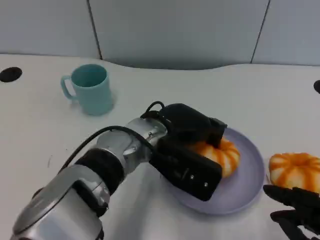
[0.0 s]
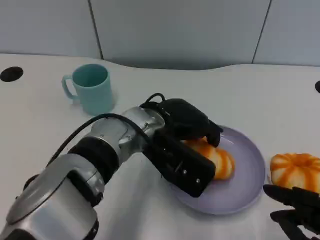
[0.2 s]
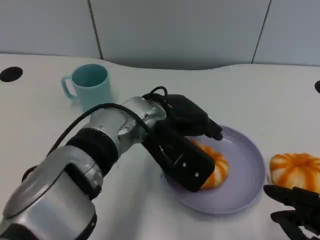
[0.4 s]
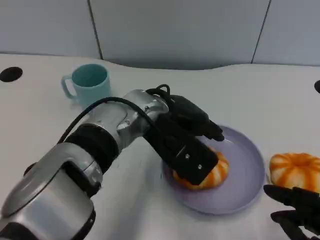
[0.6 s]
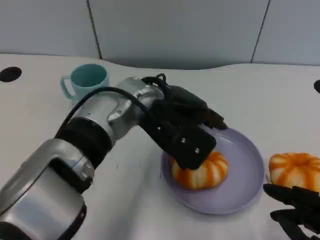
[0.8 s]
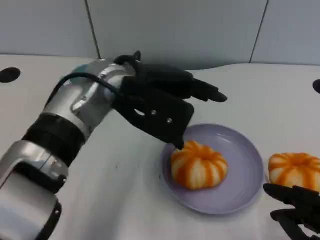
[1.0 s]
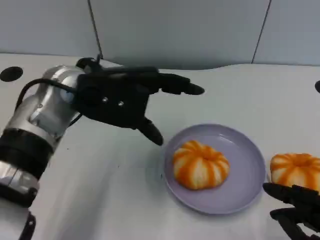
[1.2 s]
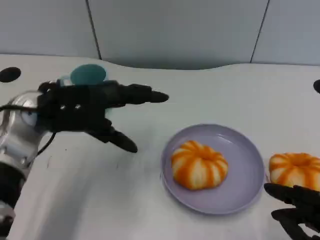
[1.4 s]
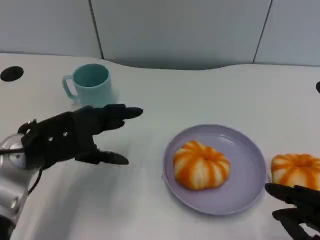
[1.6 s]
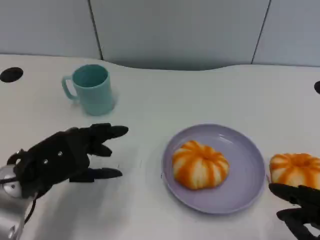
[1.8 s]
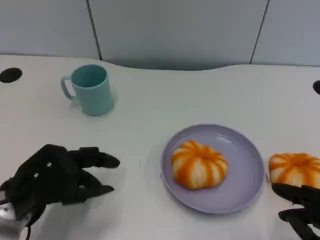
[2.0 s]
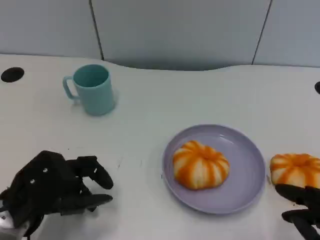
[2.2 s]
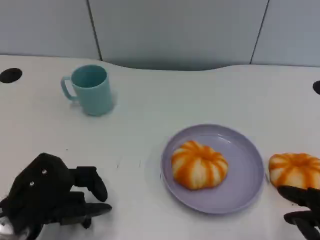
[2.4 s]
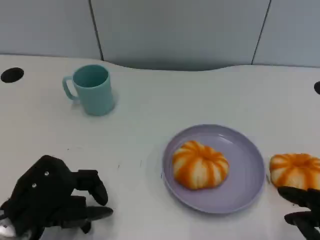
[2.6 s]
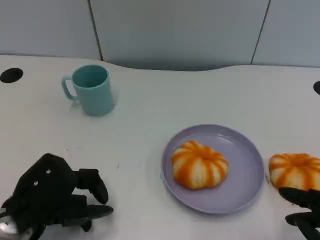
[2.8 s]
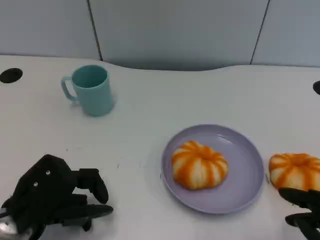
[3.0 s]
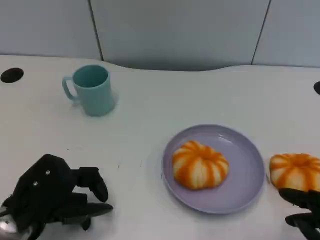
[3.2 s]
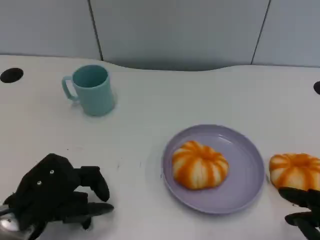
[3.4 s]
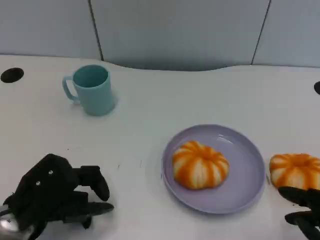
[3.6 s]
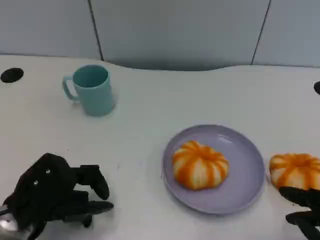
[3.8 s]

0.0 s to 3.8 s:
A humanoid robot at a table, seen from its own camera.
Task of the whole recording: Grasp the bread from the table and place it into the plate.
0.0 to 1.2 s: The left hand travels to the left and upward by approximately 15 cm.
1.2 to 2.6 s: The left hand goes about 20 cm downward, backward and to the left.
2.6 to 3.8 s: Both hands stay about where they are.

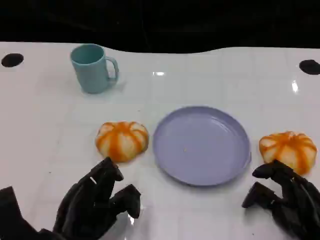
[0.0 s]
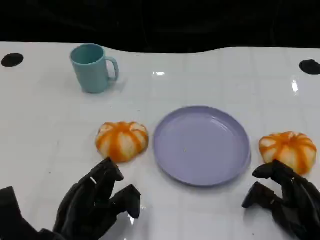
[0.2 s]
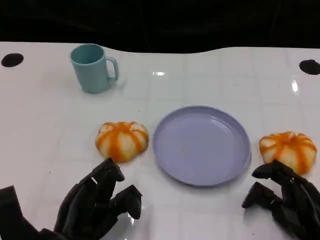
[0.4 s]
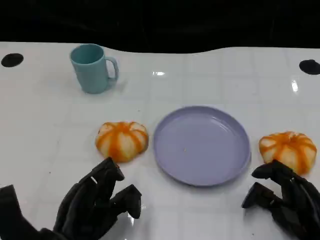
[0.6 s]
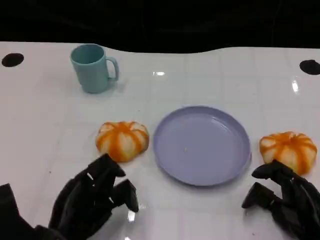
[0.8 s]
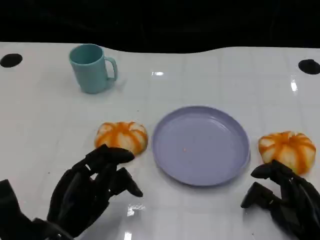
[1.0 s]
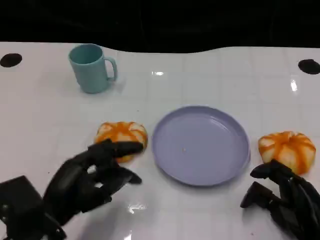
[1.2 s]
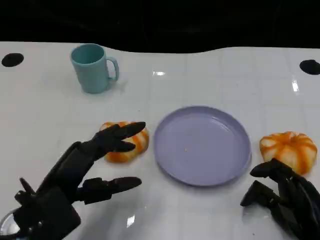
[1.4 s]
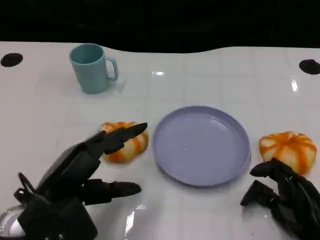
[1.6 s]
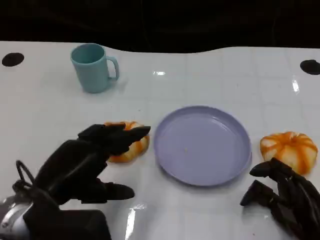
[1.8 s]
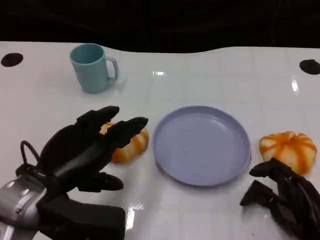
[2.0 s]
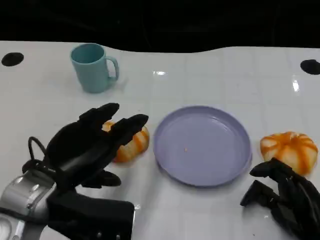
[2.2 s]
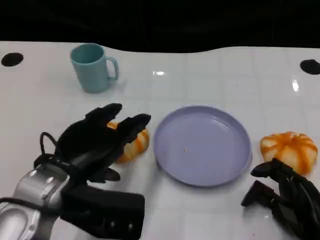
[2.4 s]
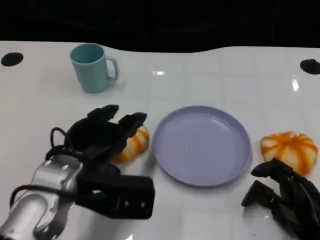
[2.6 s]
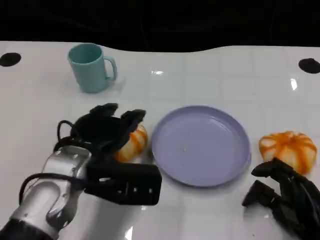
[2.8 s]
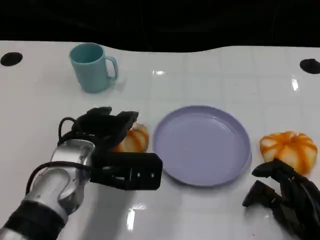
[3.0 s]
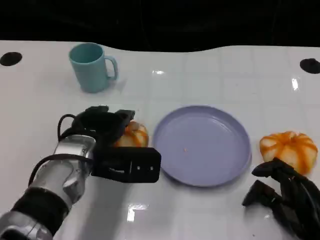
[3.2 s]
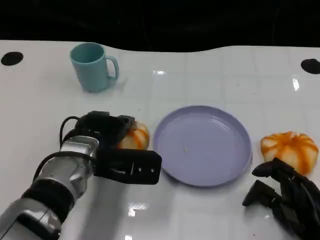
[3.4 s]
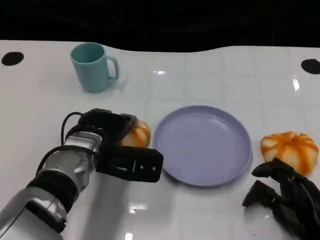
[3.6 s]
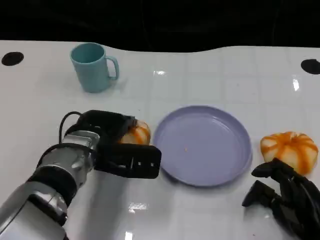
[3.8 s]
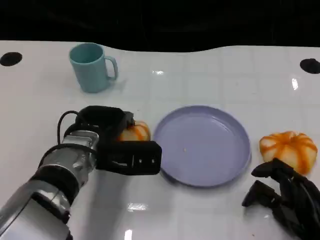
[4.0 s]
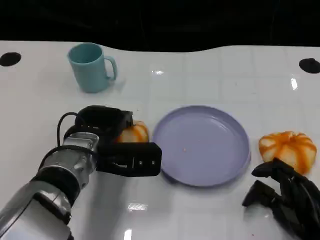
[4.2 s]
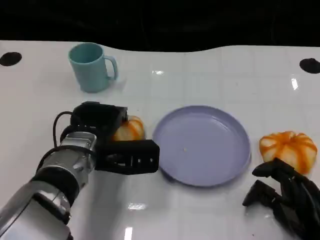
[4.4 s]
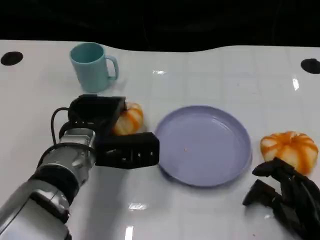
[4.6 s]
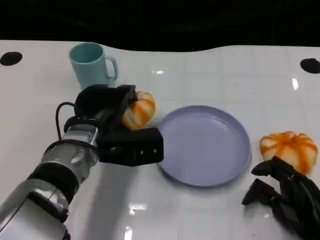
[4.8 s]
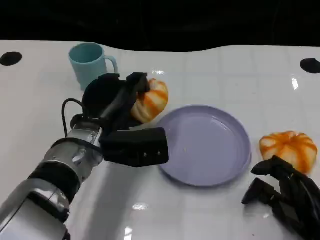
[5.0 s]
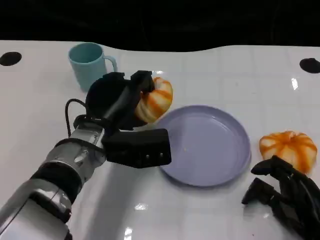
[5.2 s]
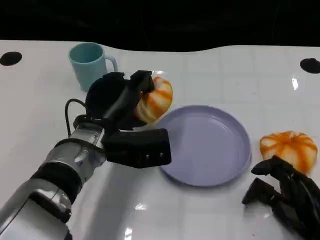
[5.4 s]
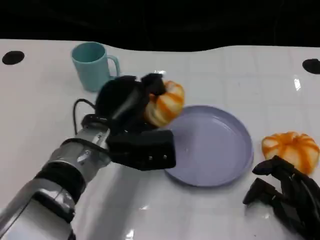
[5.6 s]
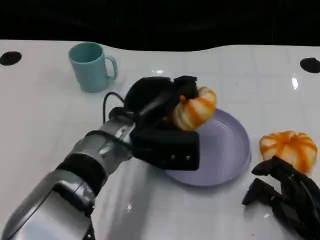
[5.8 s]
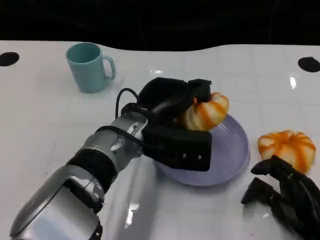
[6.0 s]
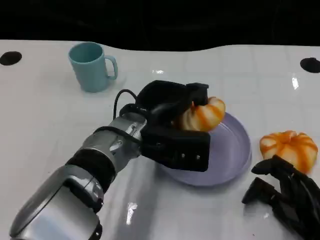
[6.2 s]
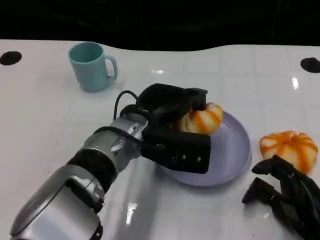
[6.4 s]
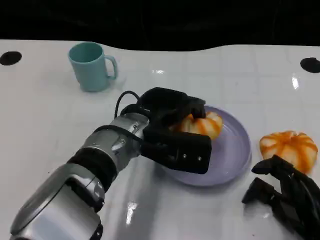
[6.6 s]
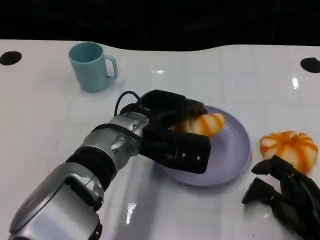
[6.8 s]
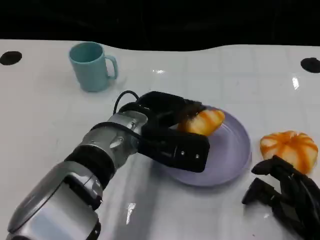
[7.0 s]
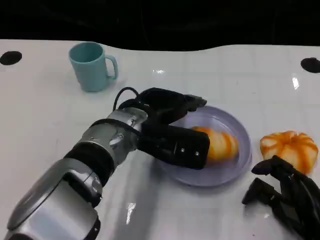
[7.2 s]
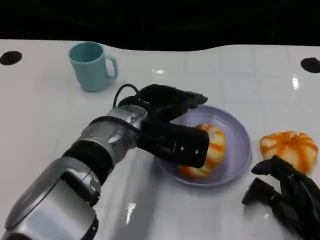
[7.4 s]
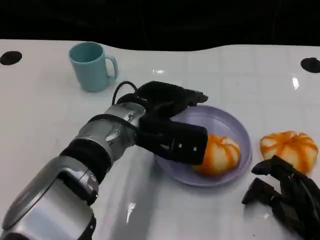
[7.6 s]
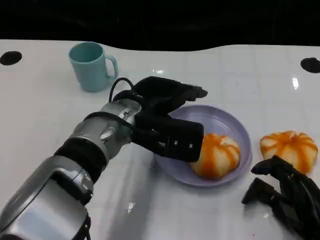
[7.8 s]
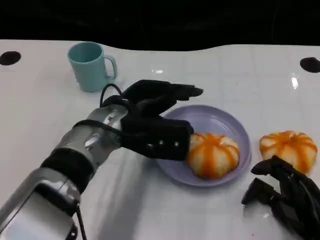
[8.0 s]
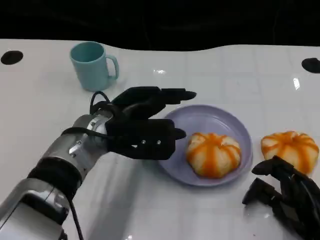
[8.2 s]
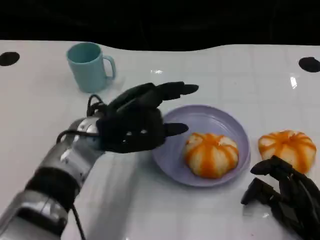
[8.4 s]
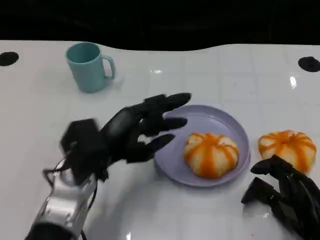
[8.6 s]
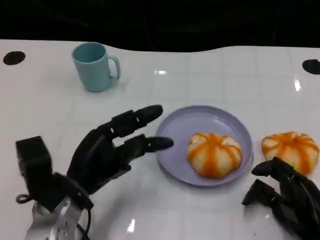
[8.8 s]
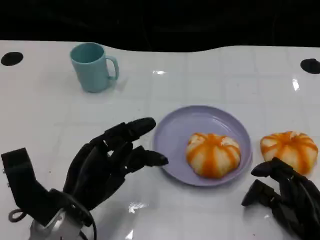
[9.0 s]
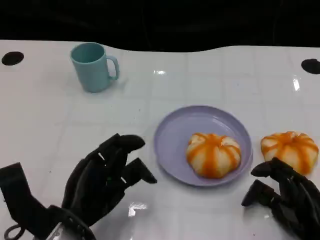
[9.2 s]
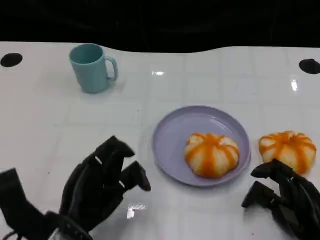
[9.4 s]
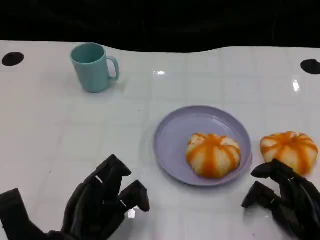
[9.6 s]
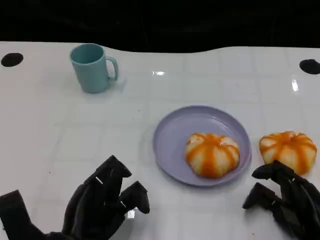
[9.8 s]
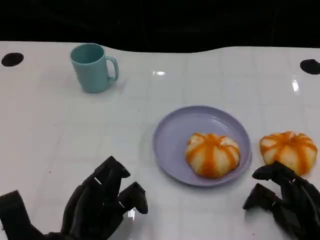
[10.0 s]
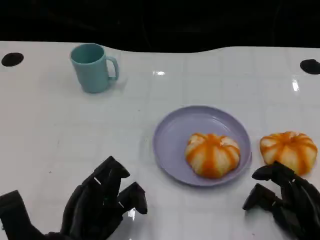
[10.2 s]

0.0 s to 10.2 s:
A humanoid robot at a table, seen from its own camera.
Task of the whole recording: Grasp the bread from the table and place it into the plate.
0.0 to 1.4 s: The left hand travels upward by about 5 cm.
1.4 to 3.0 s: The left hand travels forward and to the right by roughly 10 cm.
3.0 to 4.4 s: The hands stay close to where they were, moving slightly.
4.4 to 5.8 s: The left hand goes some 5 cm to the right.
7.2 to 8.8 s: The left hand shifts about 15 cm to the left, backward and downward.
8.8 to 10.2 s: The left hand moves backward, about 5 cm.

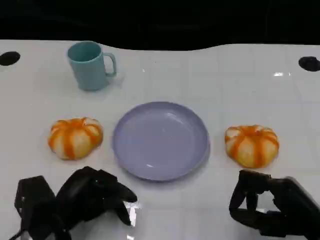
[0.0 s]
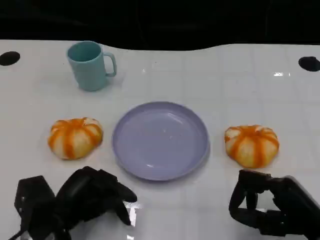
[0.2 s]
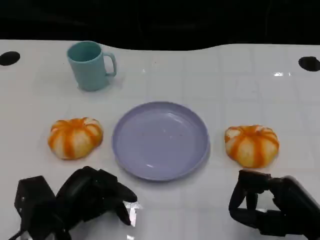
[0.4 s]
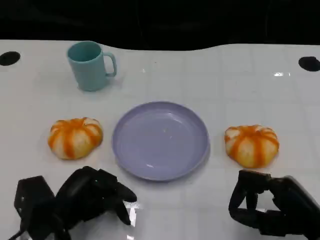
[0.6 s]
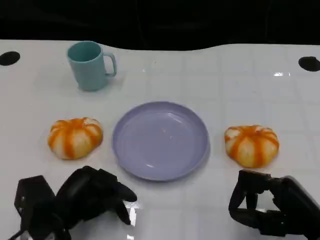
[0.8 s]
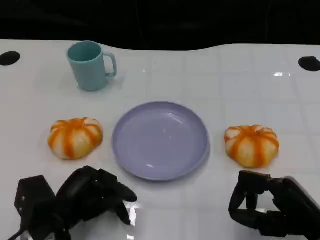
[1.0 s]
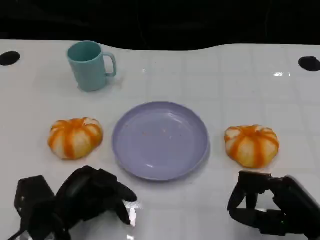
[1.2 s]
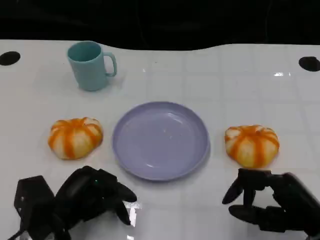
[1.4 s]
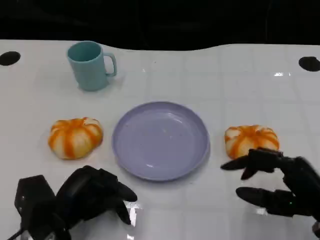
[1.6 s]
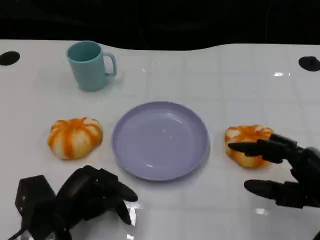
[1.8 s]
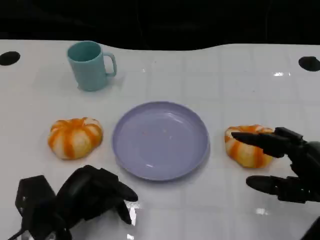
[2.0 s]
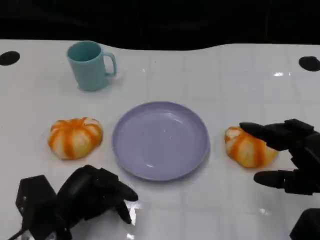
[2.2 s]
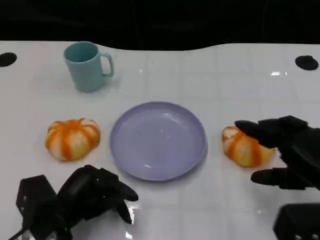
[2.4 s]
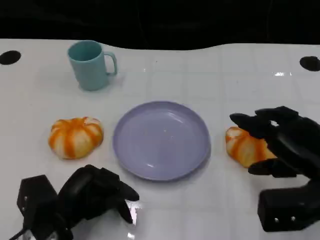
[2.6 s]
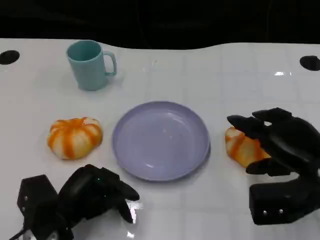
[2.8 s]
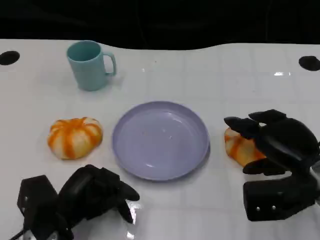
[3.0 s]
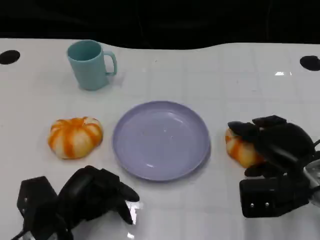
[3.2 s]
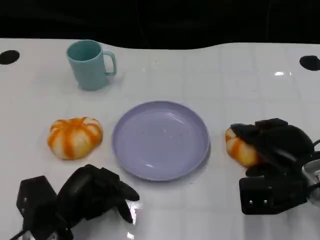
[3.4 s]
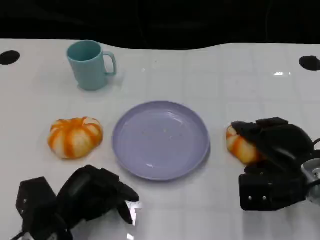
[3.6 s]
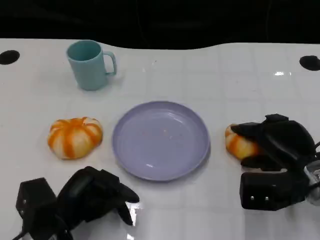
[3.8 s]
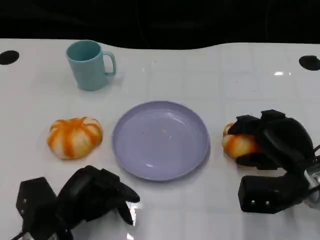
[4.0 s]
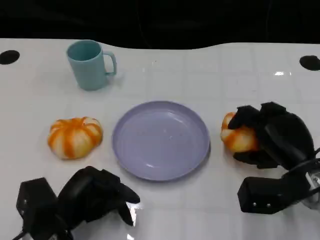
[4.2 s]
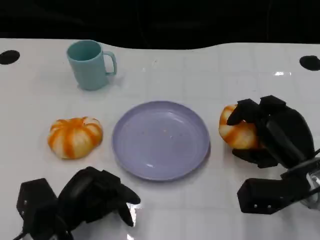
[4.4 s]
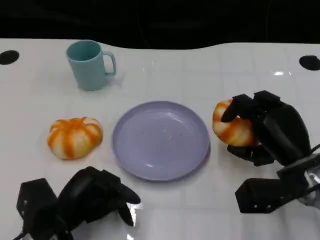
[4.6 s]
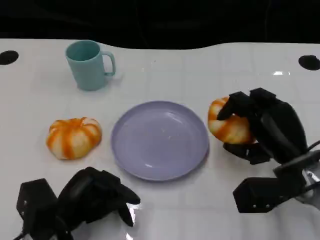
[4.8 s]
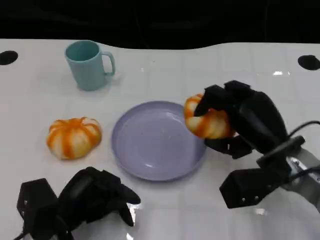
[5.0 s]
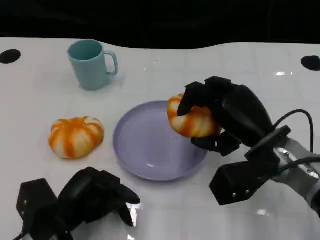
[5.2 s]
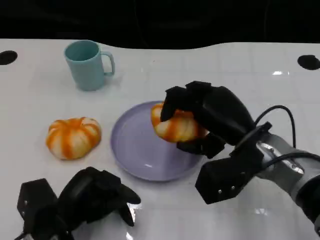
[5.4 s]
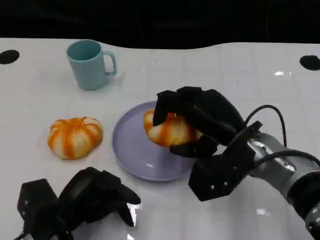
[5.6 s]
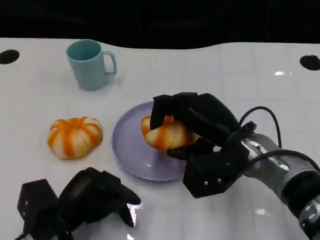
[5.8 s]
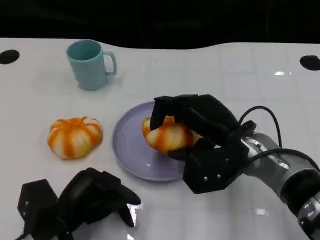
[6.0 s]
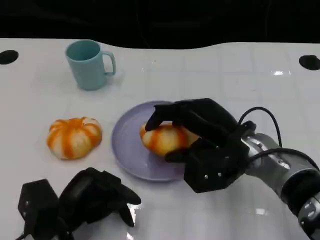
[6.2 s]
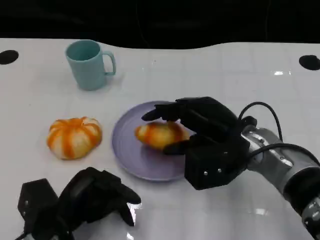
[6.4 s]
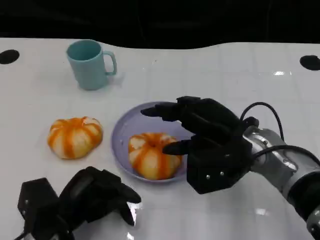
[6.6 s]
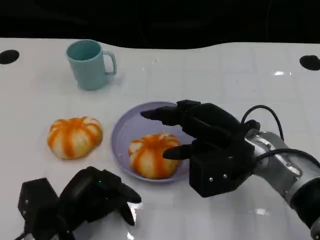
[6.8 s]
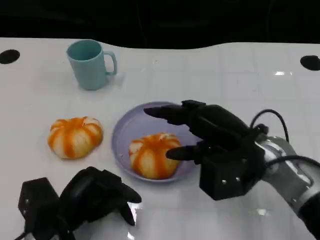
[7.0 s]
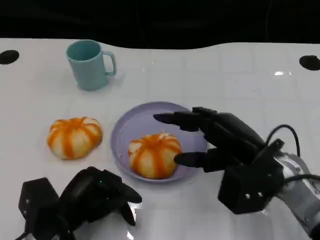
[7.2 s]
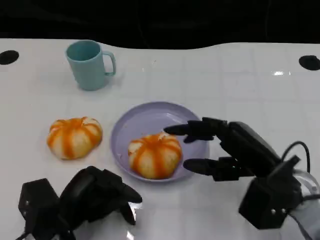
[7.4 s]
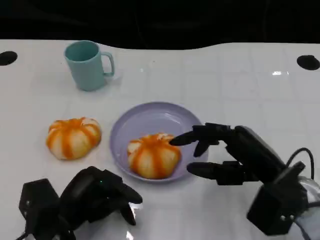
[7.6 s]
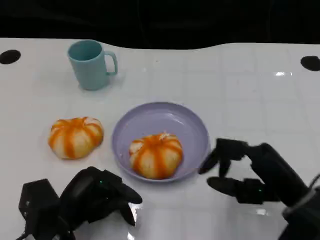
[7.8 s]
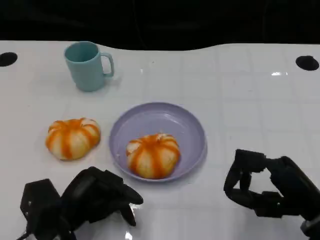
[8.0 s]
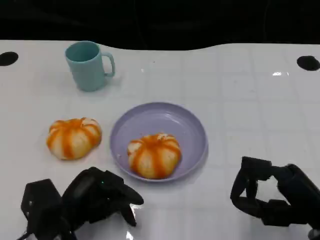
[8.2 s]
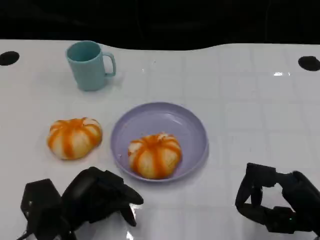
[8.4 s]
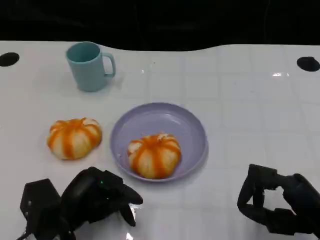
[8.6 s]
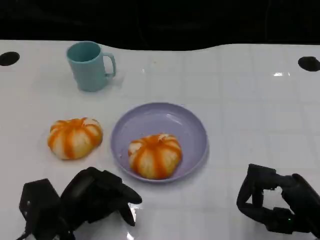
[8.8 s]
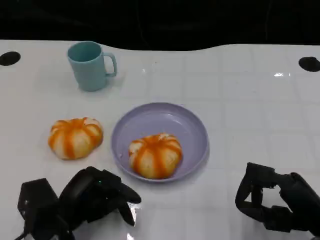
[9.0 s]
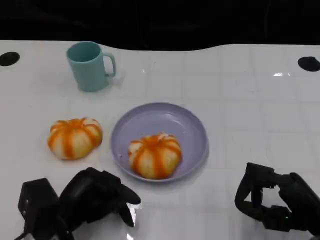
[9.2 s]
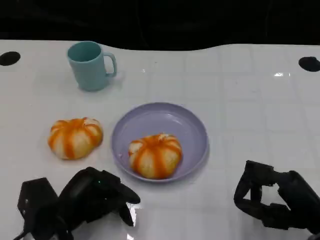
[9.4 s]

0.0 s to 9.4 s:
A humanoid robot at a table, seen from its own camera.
Task of the whole recording: Grasp the bread from the table and place it into the plate.
0.0 to 1.6 s: The hands move only a little.
1.6 to 3.2 s: The right hand is displaced forward by approximately 10 cm.
4.8 to 6.2 s: The right hand is displaced to the left by roughly 5 cm.
6.2 to 7.8 s: The right hand heads to the right and backward, covering roughly 15 cm.
7.8 to 9.4 s: The hands make only small movements.
